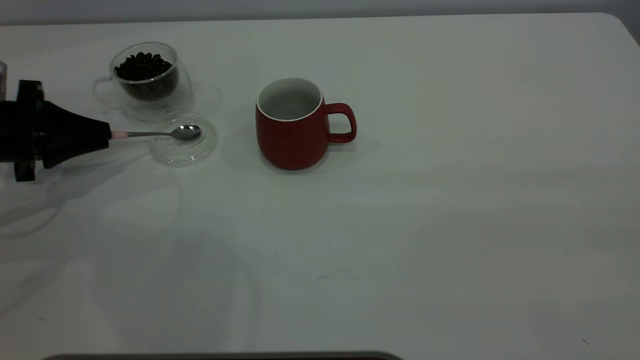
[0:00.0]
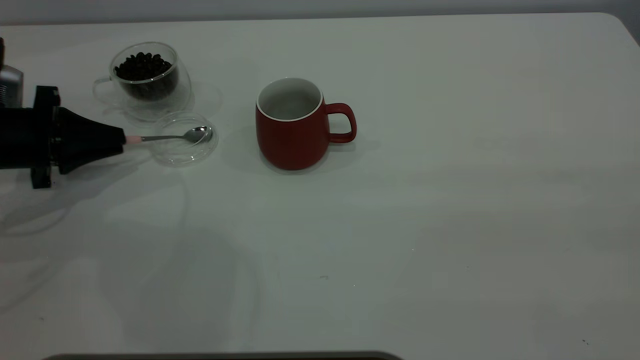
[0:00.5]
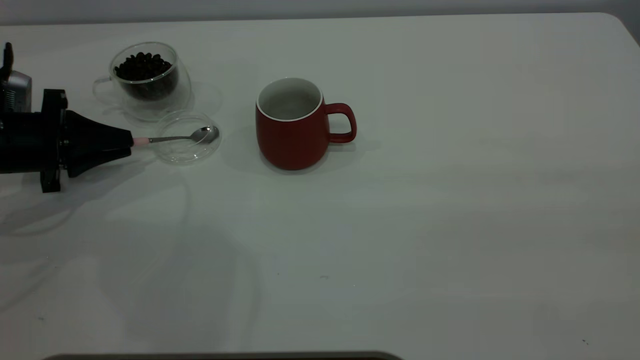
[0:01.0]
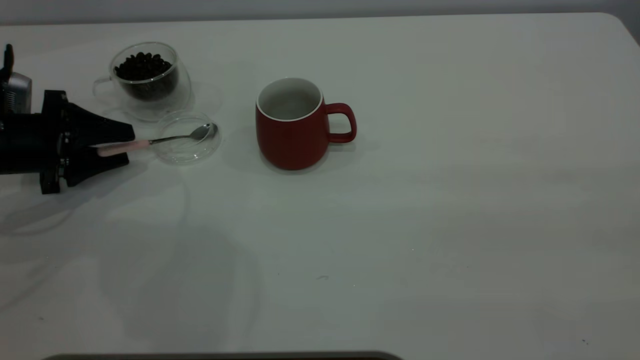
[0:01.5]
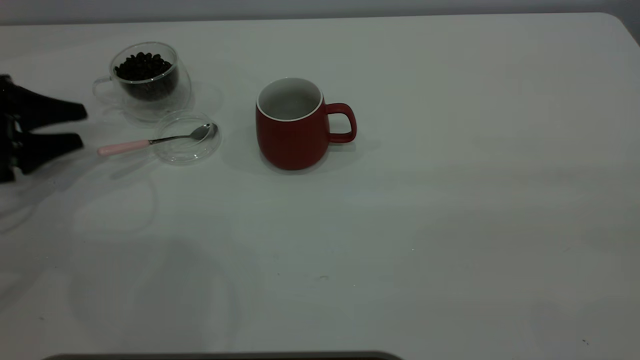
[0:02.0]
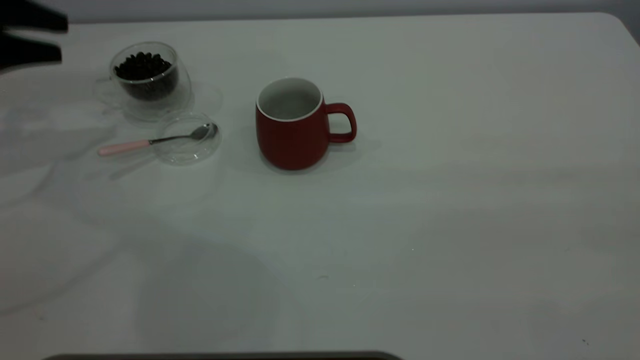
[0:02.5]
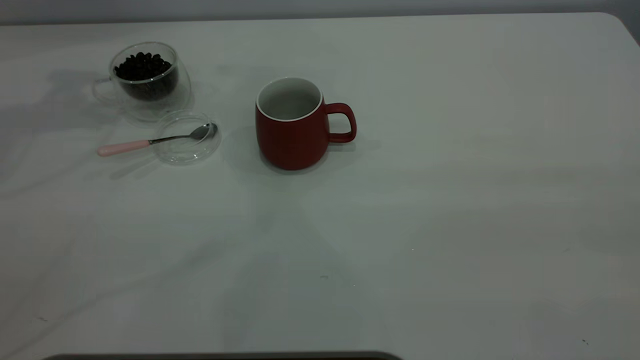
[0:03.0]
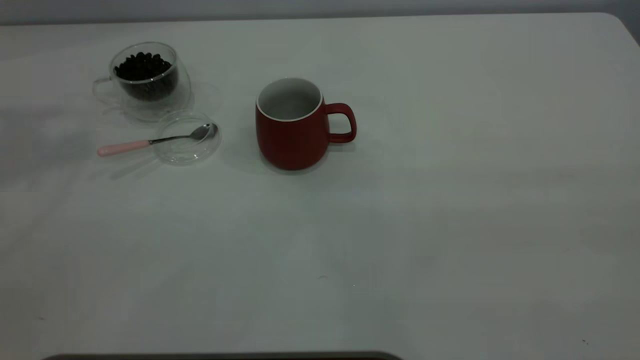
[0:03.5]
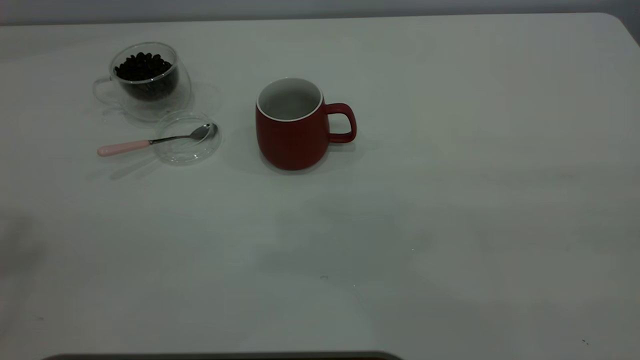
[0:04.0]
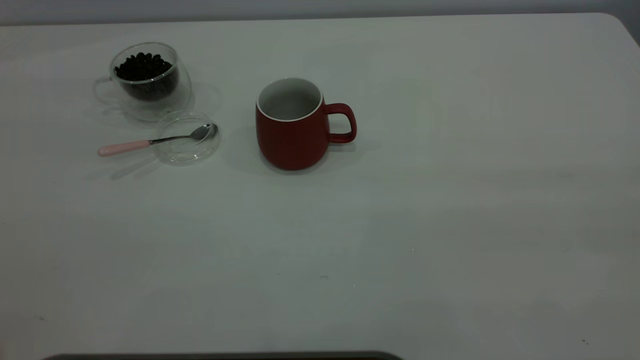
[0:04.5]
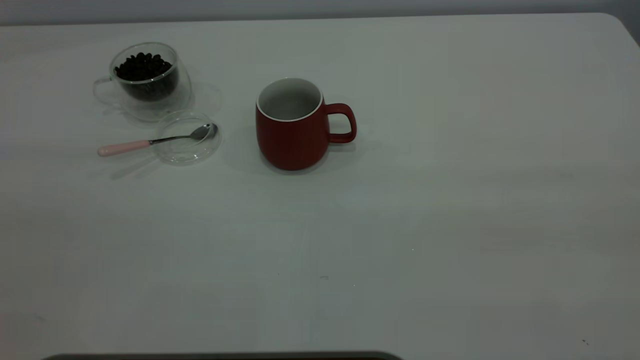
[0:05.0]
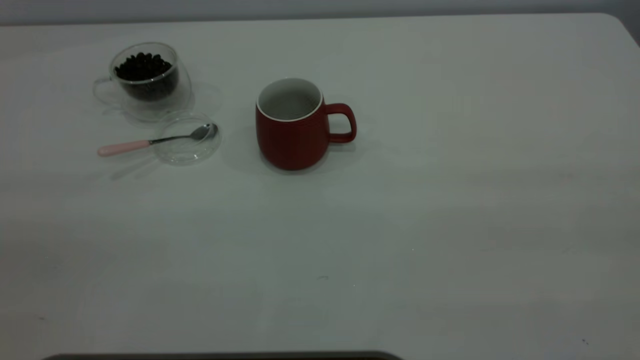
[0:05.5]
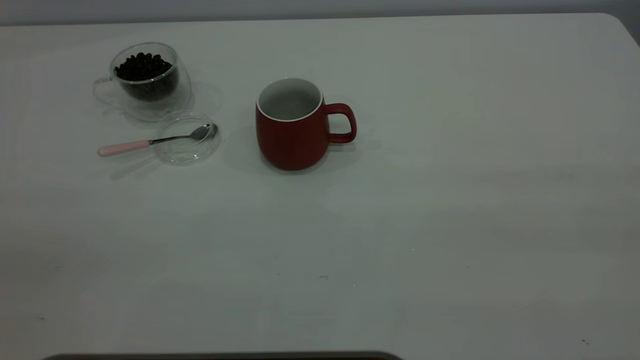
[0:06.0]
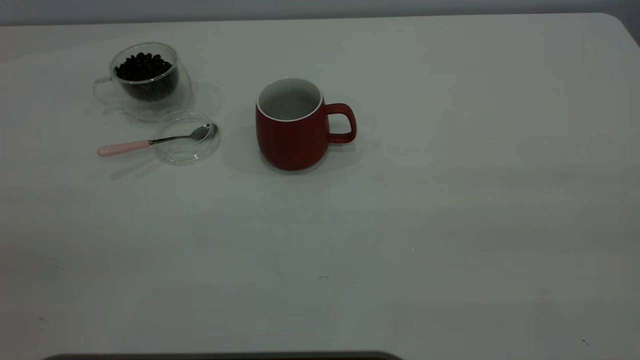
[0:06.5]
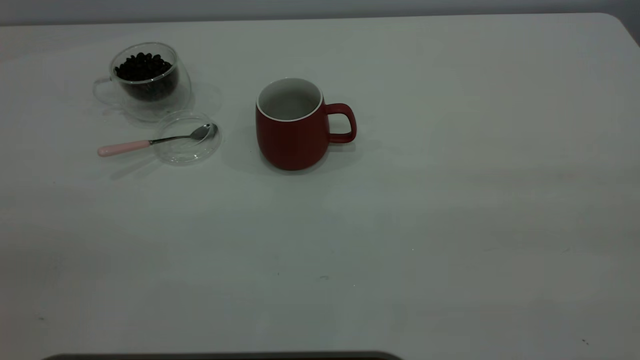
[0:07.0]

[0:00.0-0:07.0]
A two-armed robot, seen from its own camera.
Task of the whole recording: the right gripper place the red cup in the center of the table, the left gripper take the pink spoon from the cup lid and scoop out the coffee beans from the coffee cup and put them into the red cup, the left gripper put the spoon back into the cup lid.
Step, 0:00.0 to 0:02.0: Place the spoon back in its original place.
0:00.0 to 0:02.0: The left gripper opens.
0:02.0 to 0:03.5: The left gripper moves upward, roughly 40 cm.

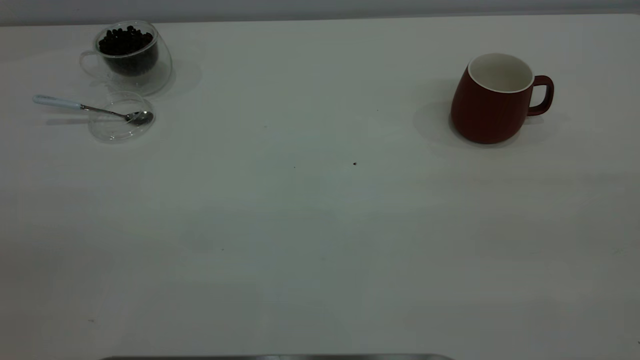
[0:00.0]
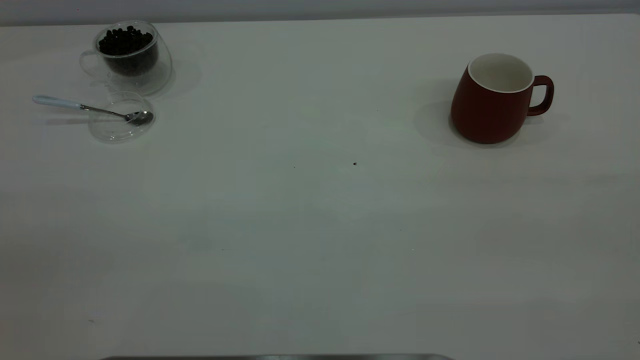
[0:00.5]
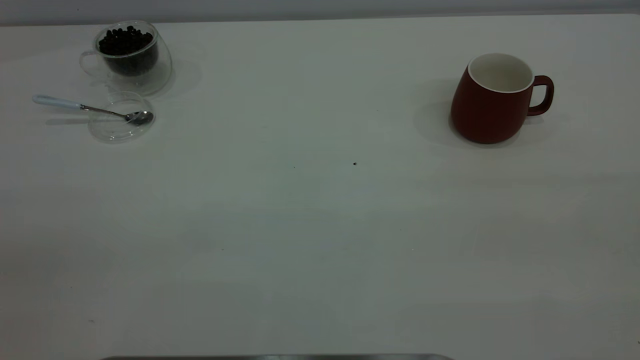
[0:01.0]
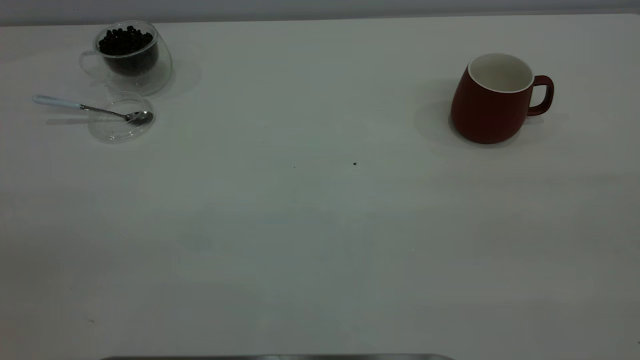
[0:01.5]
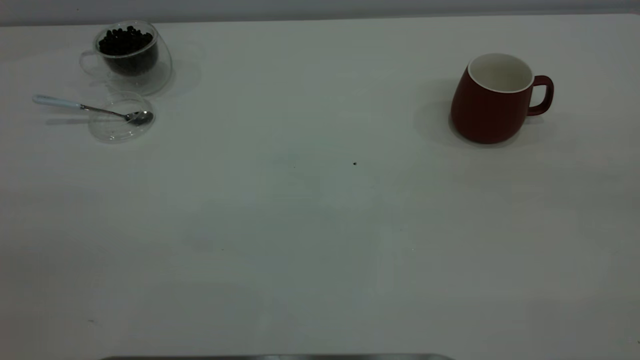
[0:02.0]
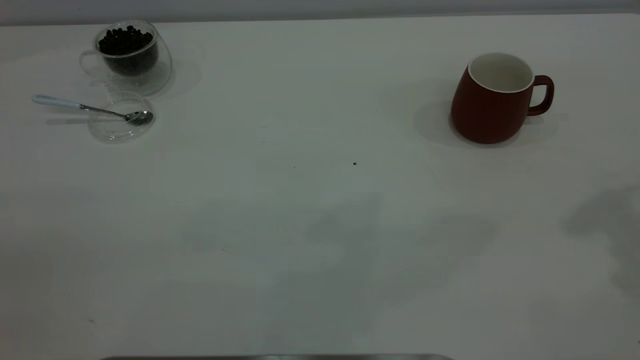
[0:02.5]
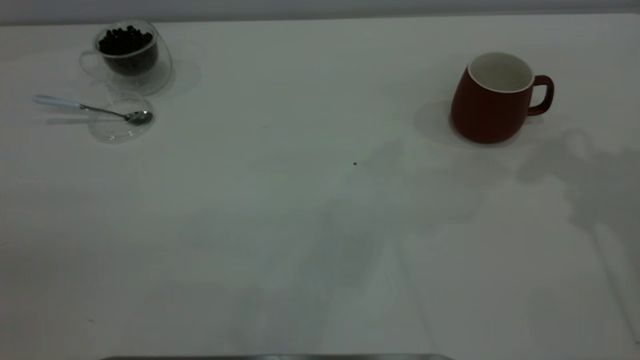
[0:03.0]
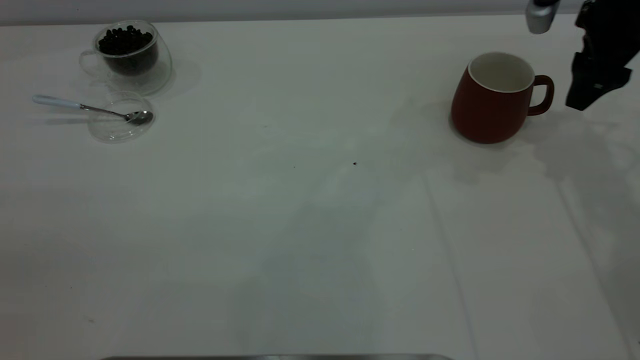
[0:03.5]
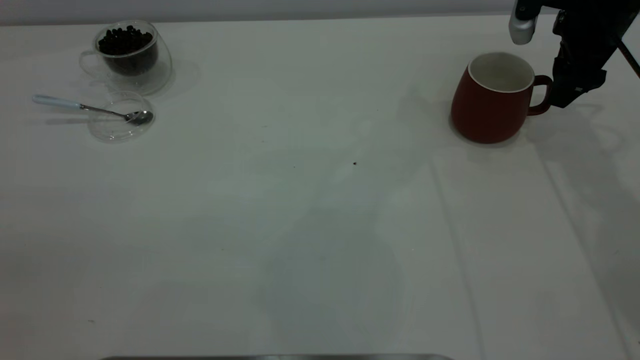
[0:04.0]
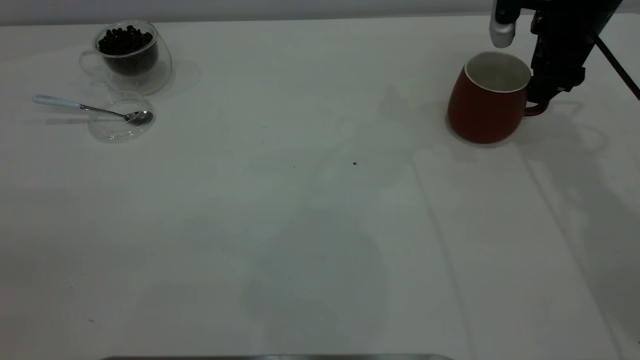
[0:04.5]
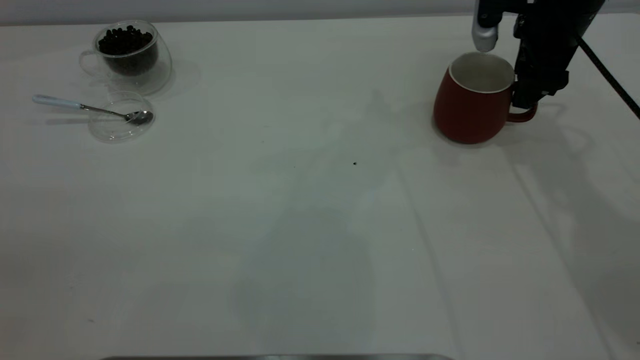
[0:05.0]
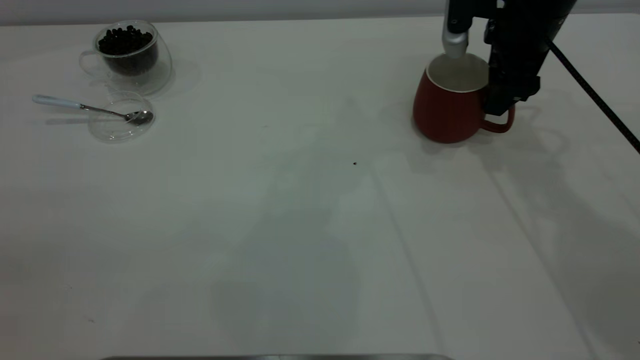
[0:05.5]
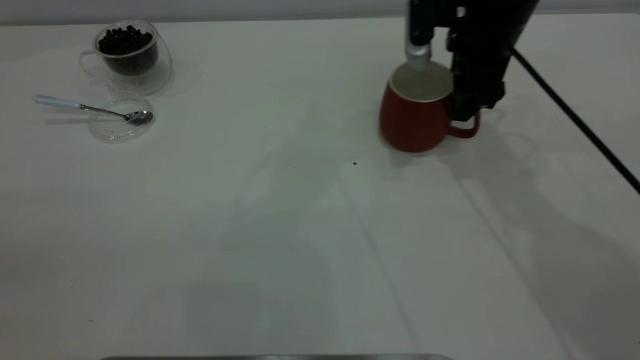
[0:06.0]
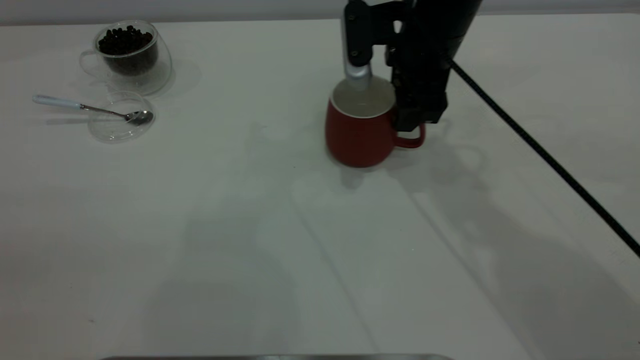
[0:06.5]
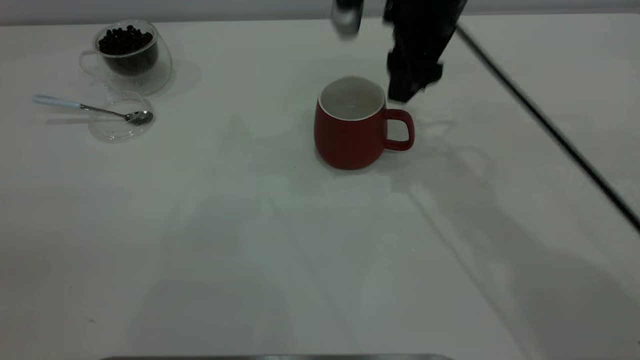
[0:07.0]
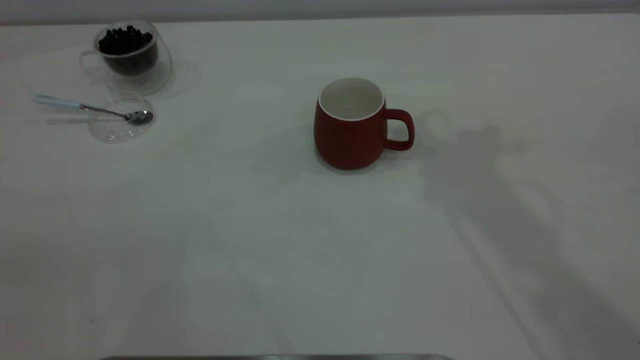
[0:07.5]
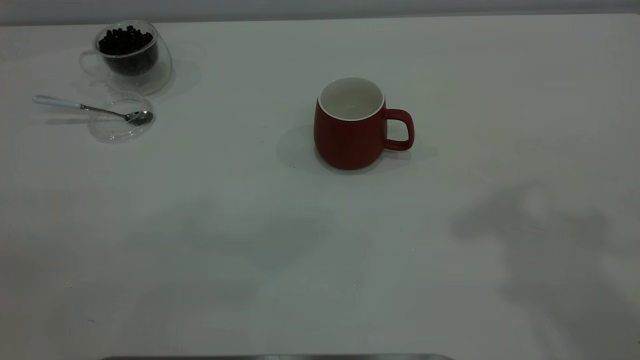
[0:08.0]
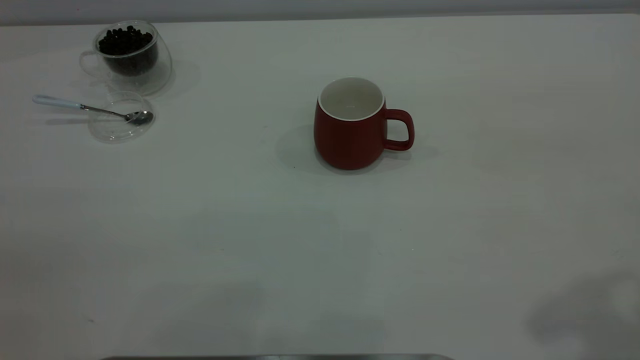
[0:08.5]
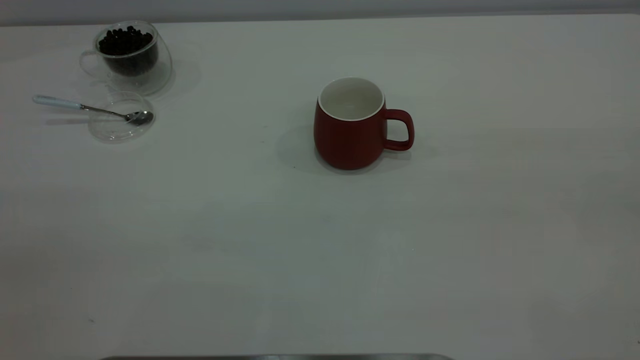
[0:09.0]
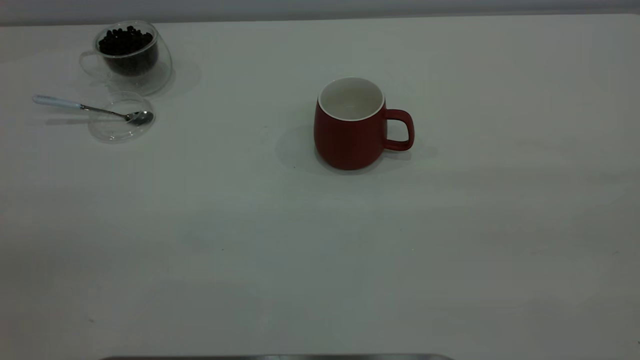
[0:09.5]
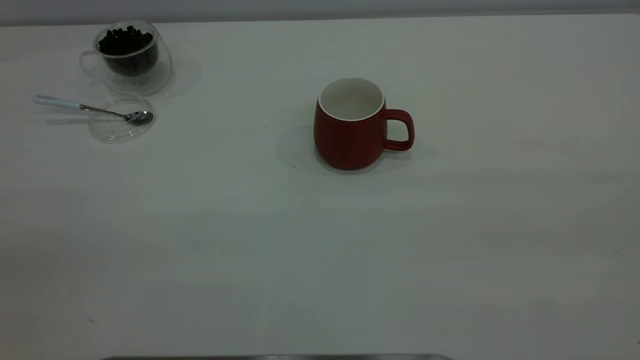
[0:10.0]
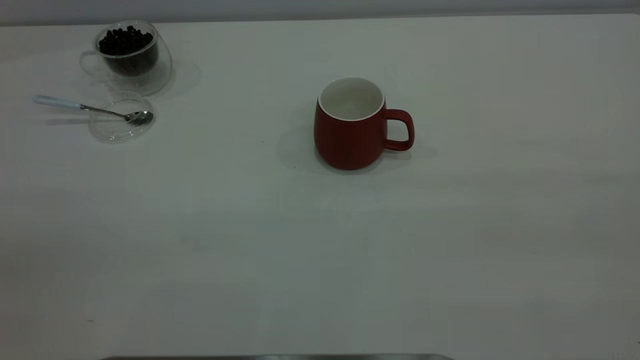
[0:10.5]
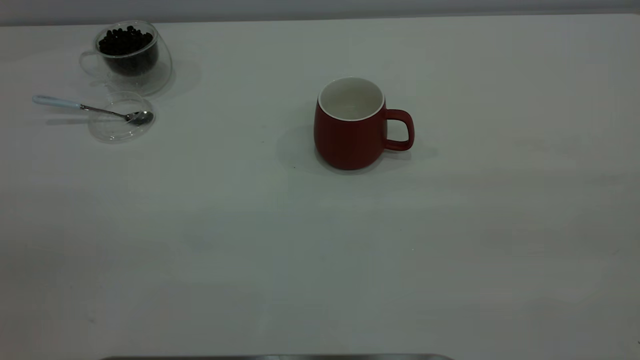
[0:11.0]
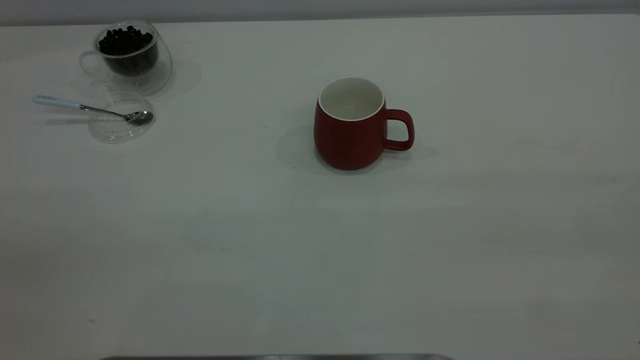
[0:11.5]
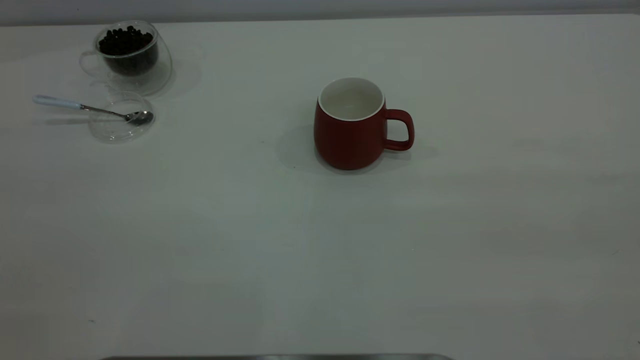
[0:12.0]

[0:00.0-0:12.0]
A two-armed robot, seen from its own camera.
Task of the whole recording: the right gripper place the red cup in the center of the table, the left gripper take the blue spoon from the cup lid and scoop out the coffee beans from the coffee cup and put them into the red cup, the left gripper put the spoon back into the cup lid.
Step, 0:00.0 to 0:06.5: Move the cup to the center of view.
0:02.0 to 0:04.0: The right gripper goes about 50 cm forward and downward.
0:04.0 to 0:06.0: The right gripper travels to the left by approximately 15 cm.
0:06.0 to 0:08.0: The right gripper travels upward and backward by roughly 35 cm.

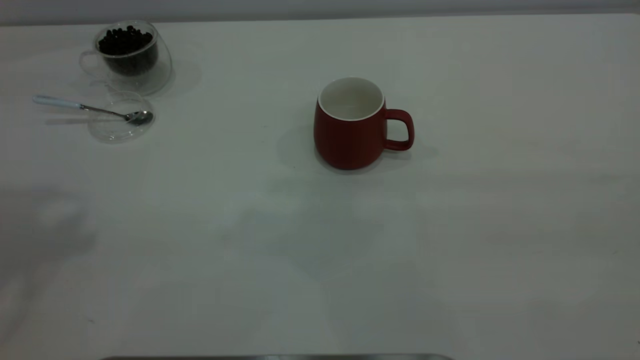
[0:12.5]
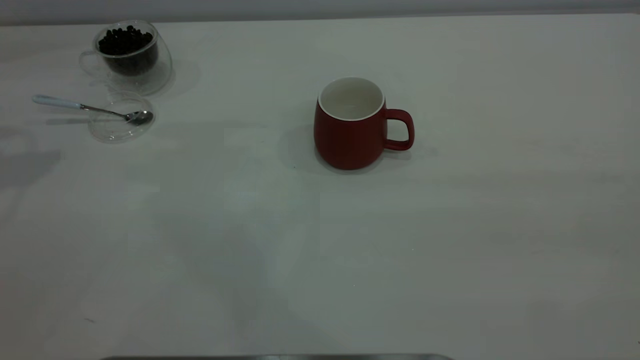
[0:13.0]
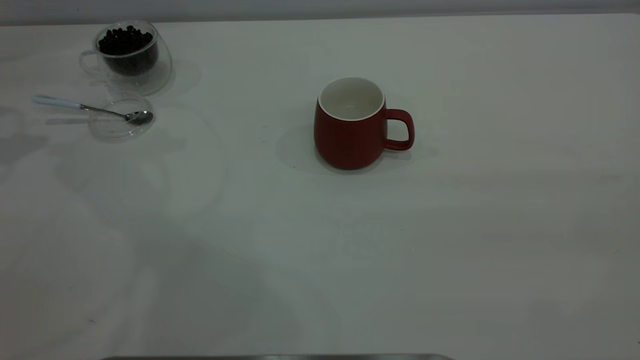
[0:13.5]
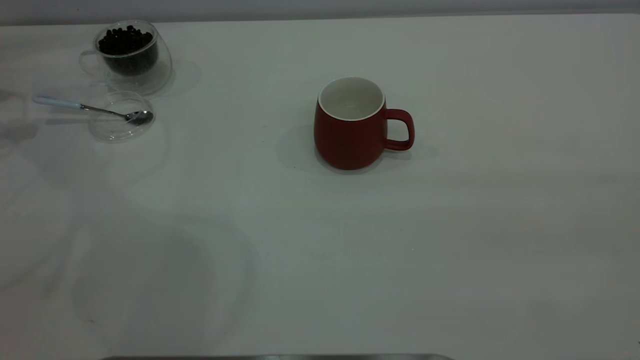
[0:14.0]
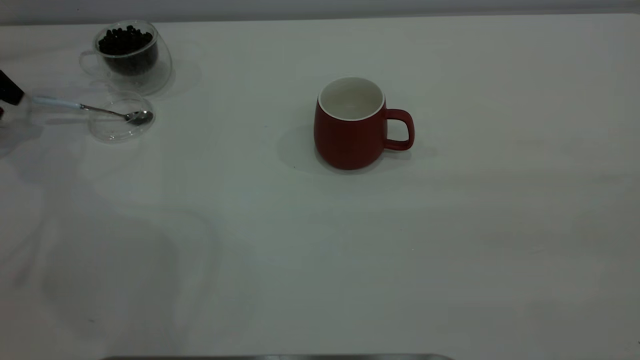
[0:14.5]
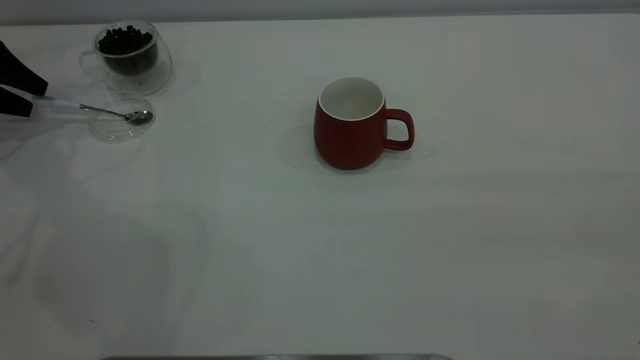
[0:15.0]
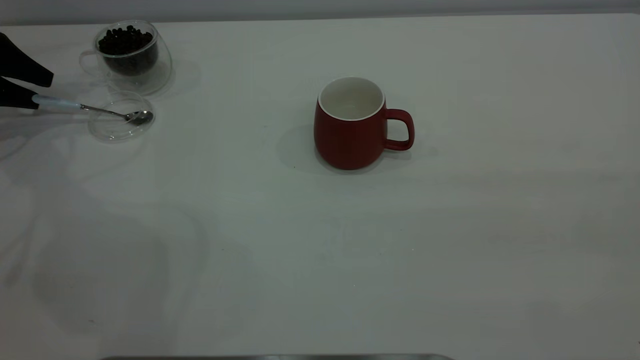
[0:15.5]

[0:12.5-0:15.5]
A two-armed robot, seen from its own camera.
Task of the whole recording: the right gripper place the red cup in the center of the table, the left gripper take the blue spoon from the cup lid and scoop out the coffee beans from the coffee cup and put them into the red cup, the left gripper put the spoon back into the cup lid.
0:14.0 to 0:15.5: The left gripper moves downward, about 5 cm.
